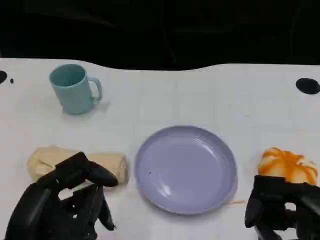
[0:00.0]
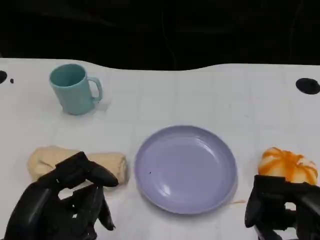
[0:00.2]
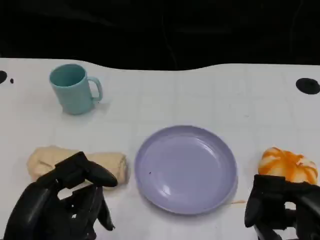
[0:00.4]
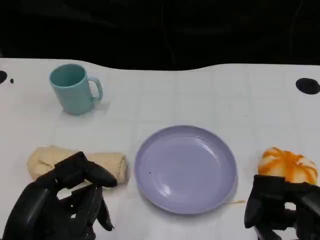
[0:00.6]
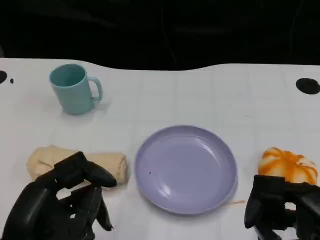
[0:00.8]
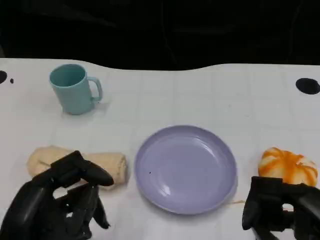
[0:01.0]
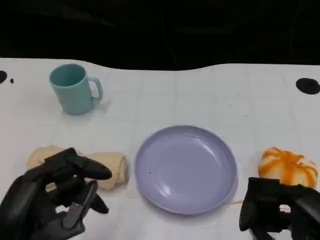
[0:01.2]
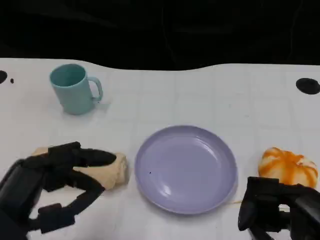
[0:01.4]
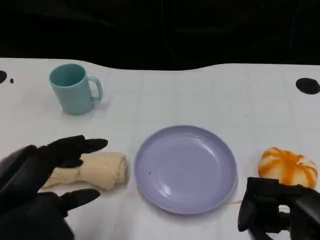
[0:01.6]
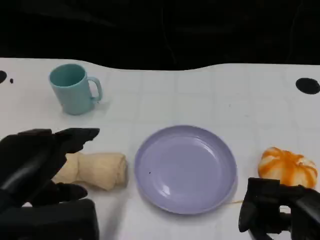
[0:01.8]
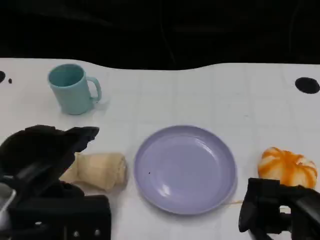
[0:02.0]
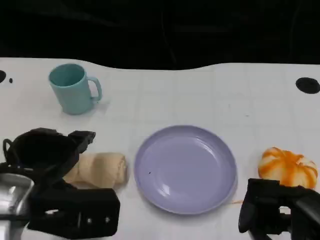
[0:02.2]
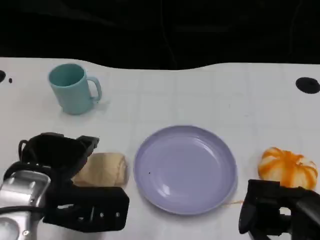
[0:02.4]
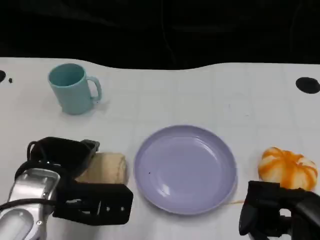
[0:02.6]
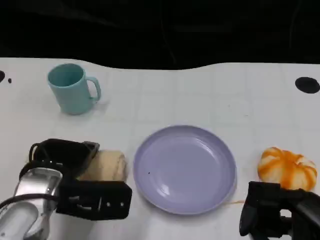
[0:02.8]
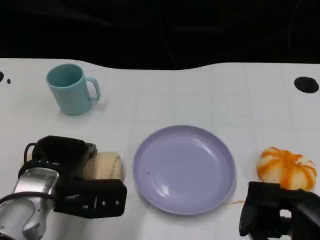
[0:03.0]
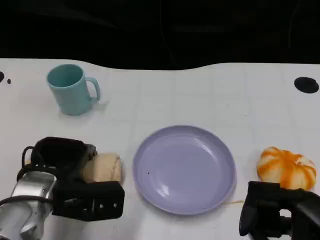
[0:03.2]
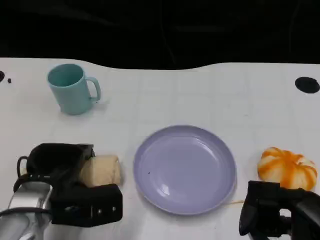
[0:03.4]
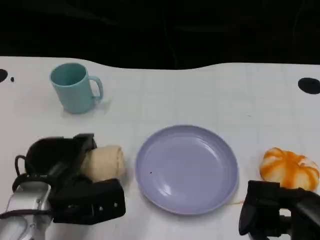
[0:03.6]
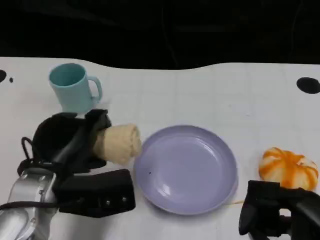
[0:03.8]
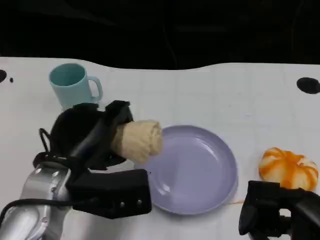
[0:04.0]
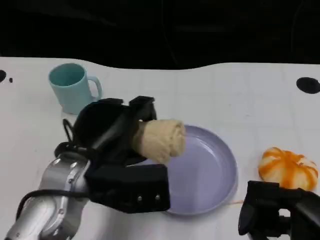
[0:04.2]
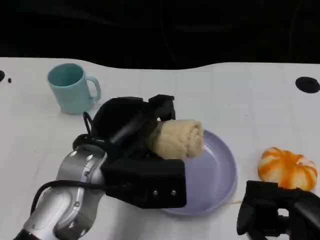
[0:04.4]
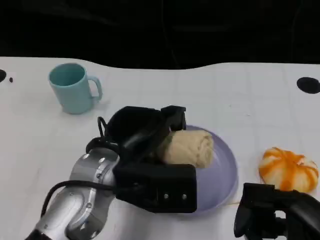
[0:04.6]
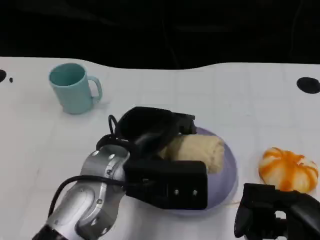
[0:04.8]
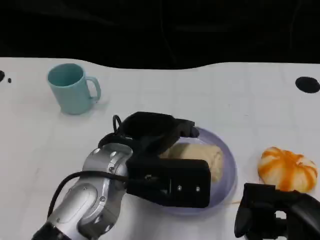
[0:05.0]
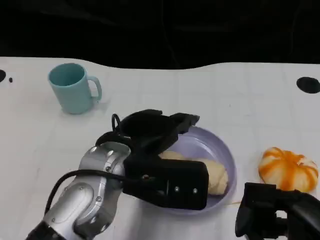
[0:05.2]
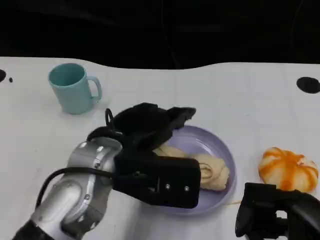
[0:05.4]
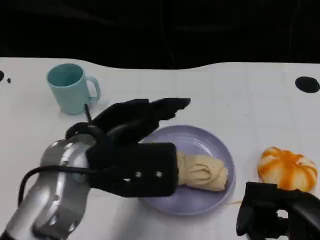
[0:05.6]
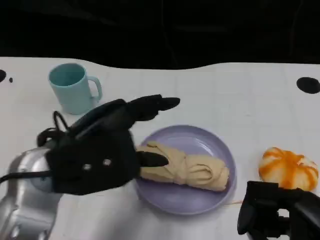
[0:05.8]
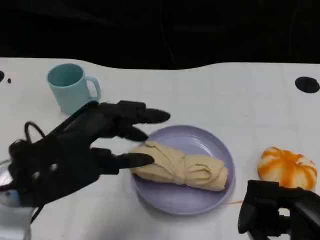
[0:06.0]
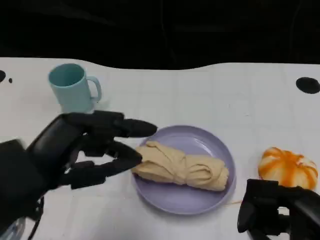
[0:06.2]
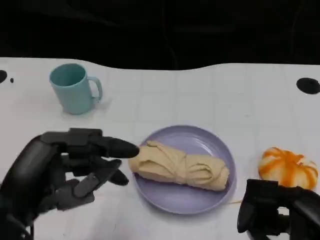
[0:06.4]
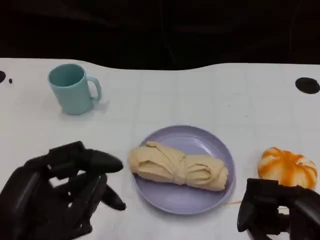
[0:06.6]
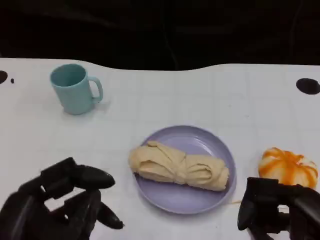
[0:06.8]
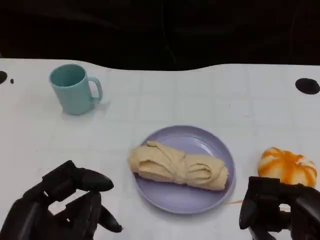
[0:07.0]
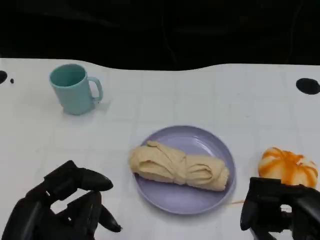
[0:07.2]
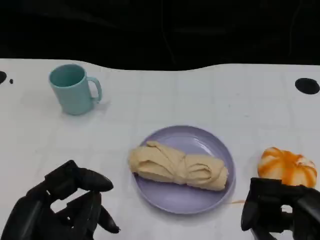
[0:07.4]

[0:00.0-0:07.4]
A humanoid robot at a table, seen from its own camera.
Task of the whole recording: Grasp the towel on the left side of the plate with the left hand and place it into the plate.
0:01.4 to 0:03.0: The left hand shifts about 15 cm forward and downward.
0:03.0 to 0:04.4: The left hand travels upward and to the right by roughly 10 cm.
0:04.4 to 0:06.0: The left hand shifts roughly 10 cm to the left.
0:06.0 to 0:07.4: The left hand goes some 10 cm backward and downward.

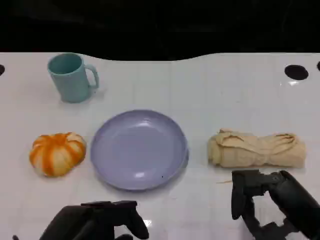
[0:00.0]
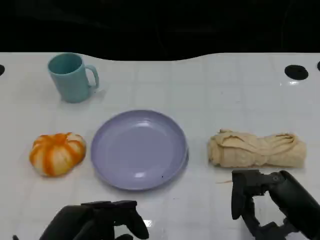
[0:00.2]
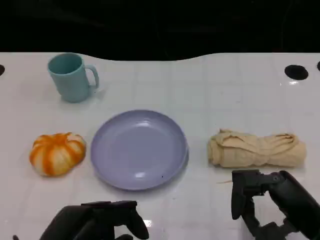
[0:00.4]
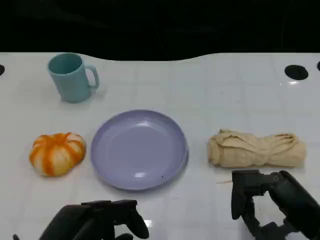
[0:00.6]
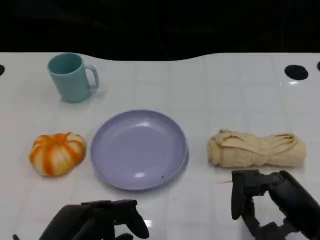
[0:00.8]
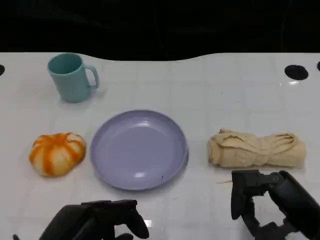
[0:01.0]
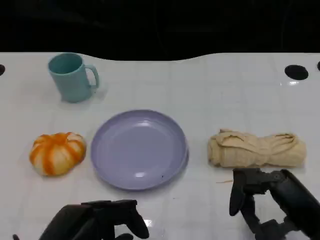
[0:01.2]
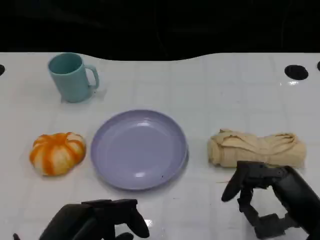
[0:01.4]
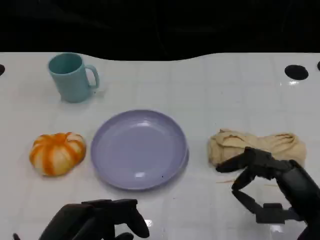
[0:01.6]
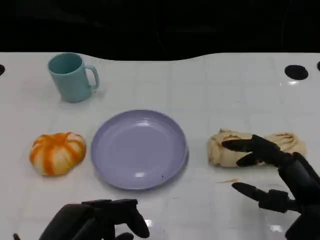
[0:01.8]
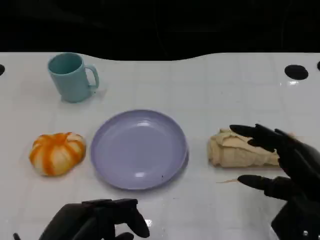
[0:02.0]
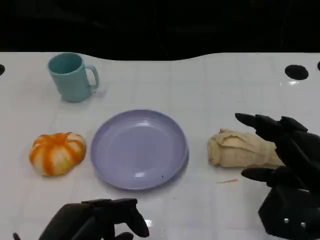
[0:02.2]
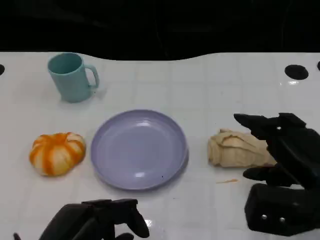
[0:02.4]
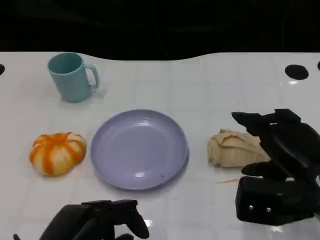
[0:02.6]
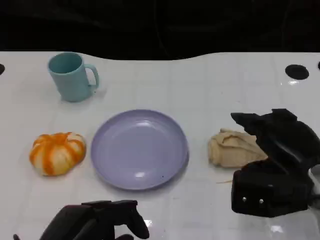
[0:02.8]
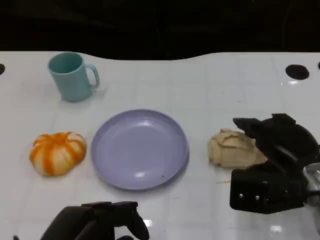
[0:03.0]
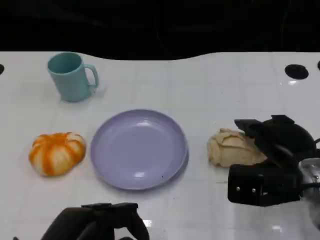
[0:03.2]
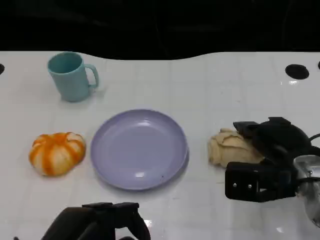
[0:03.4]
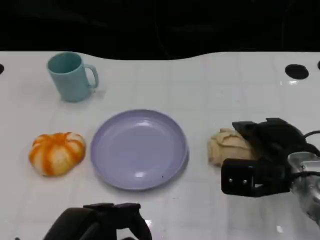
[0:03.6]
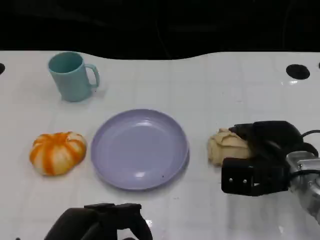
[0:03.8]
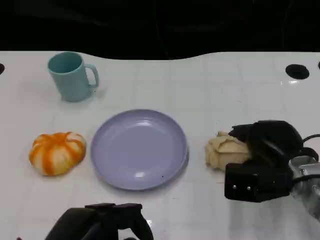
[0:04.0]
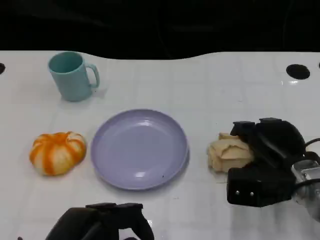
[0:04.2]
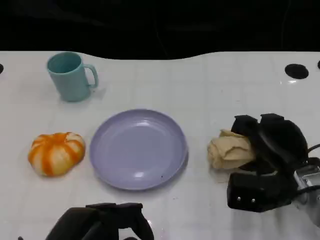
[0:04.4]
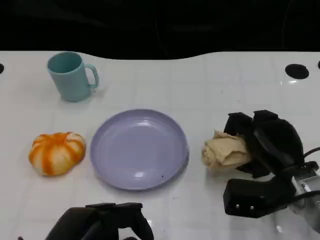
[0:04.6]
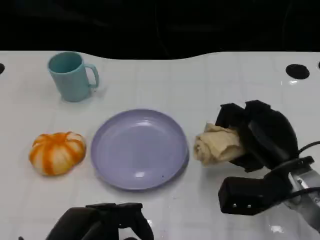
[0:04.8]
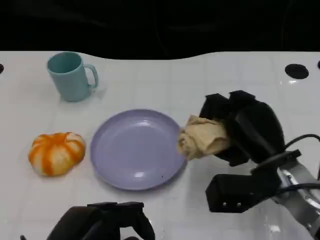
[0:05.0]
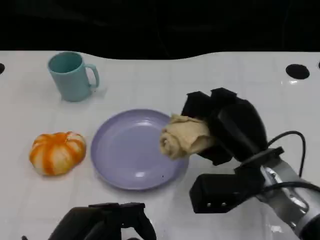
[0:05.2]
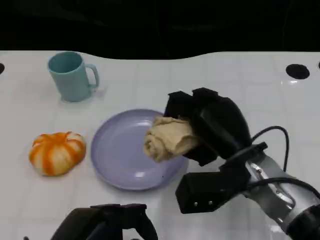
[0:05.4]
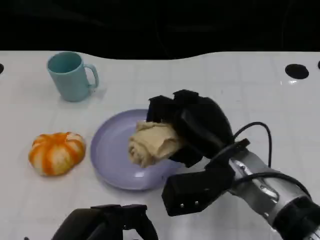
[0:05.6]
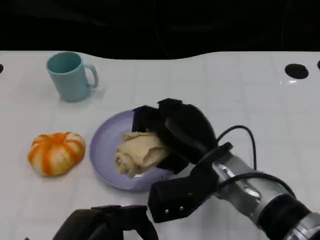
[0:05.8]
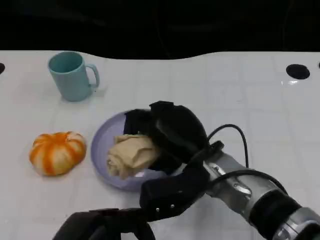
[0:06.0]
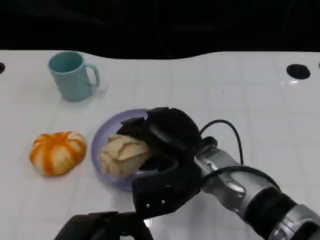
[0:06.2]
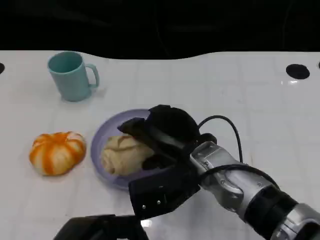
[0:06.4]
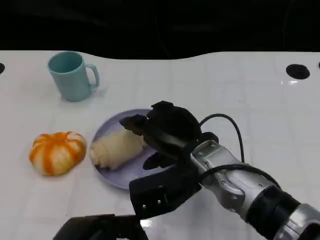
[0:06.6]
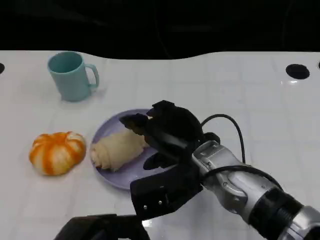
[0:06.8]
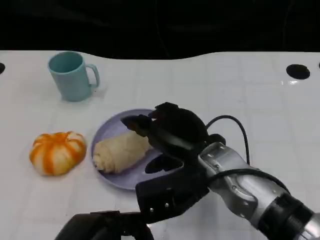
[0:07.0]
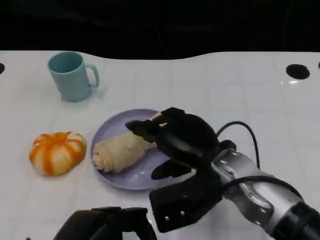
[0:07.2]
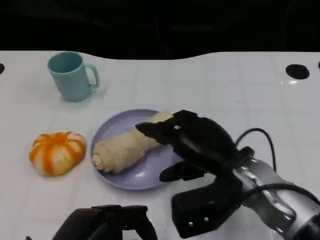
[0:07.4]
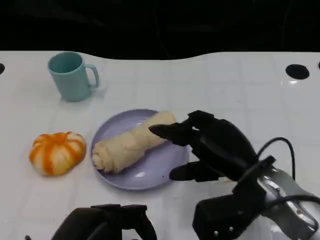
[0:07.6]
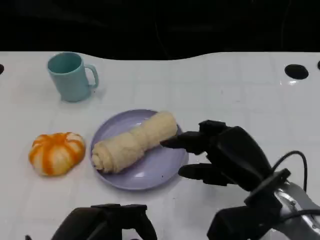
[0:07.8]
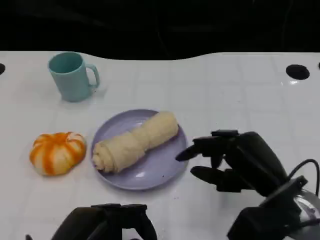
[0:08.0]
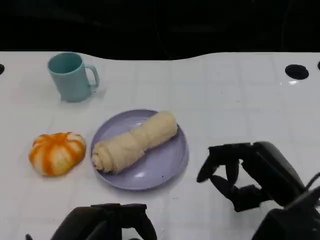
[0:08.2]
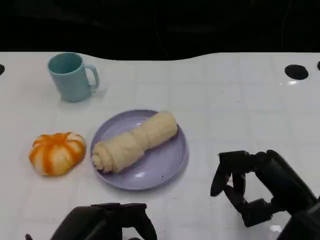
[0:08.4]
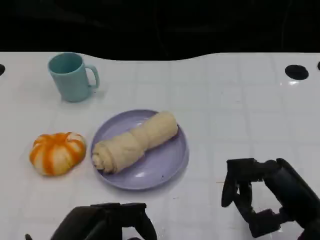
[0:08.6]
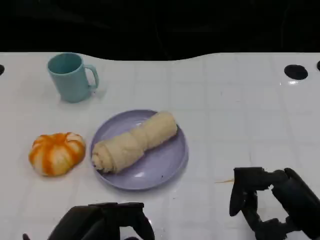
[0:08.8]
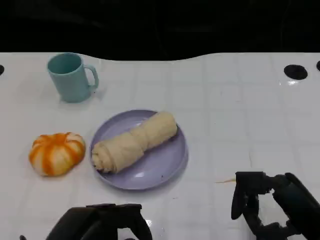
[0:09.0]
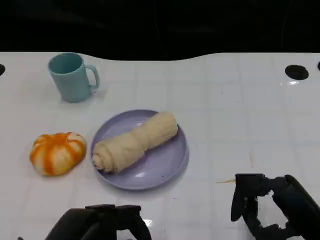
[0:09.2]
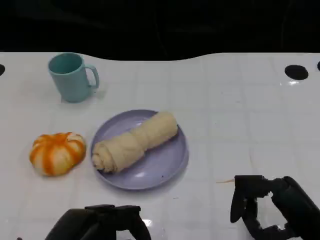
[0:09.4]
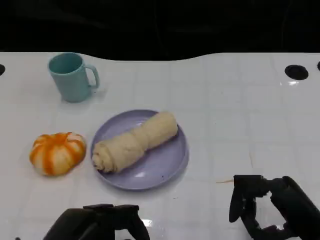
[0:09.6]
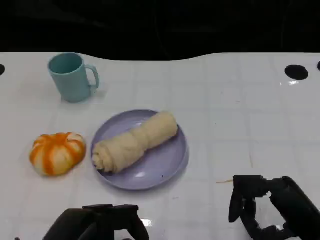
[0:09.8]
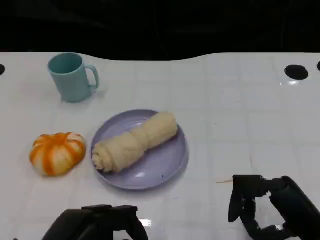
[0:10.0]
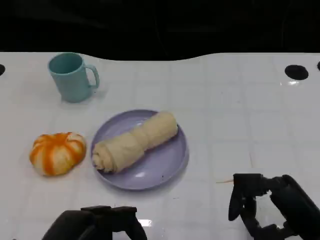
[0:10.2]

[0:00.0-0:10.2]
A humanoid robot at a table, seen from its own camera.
Task of the whole recording: Grasp the towel on the left side of the plate with the left hand and place it into the plate.
0:00.0 to 0:01.4: There are only small adjustments of the hands.
0:01.4 to 0:03.0: The right hand travels forward by roughly 10 cm.
0:03.0 to 0:04.4: The right hand ends up some 5 cm from where it was.
0:04.4 to 0:05.8: The right hand travels to the left by roughly 15 cm.
0:07.2 to 0:08.8: The right hand moves to the right and backward, approximately 15 cm.
0:08.8 to 0:10.2: Both hands stay about where they are.

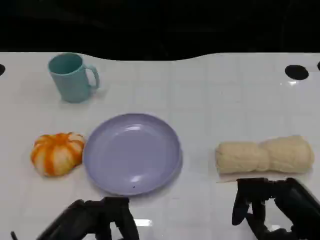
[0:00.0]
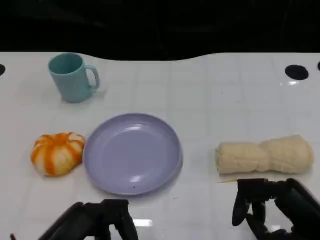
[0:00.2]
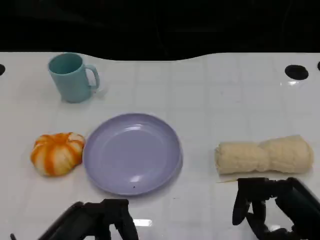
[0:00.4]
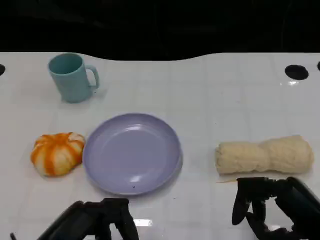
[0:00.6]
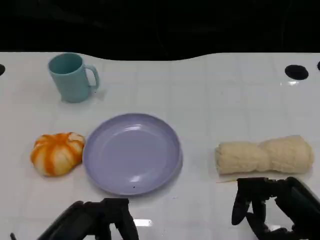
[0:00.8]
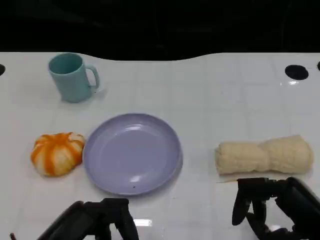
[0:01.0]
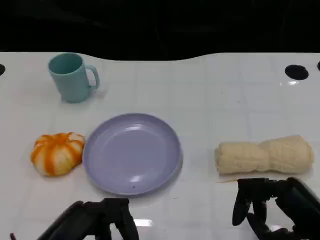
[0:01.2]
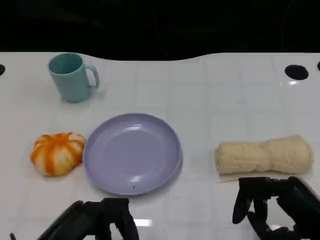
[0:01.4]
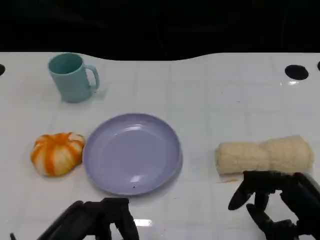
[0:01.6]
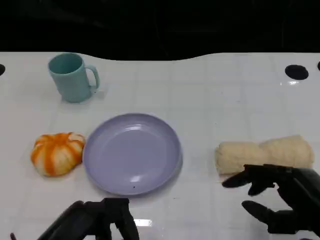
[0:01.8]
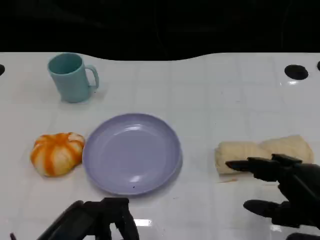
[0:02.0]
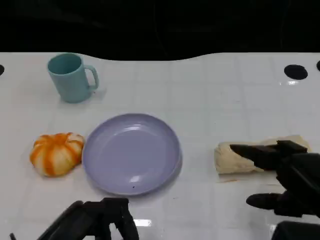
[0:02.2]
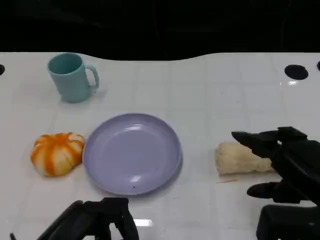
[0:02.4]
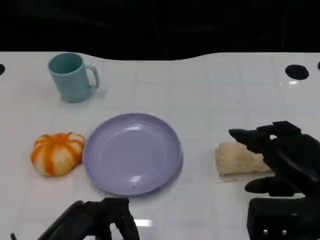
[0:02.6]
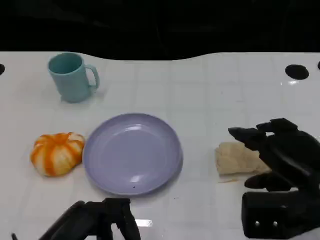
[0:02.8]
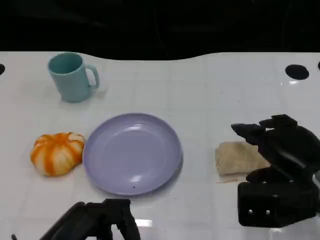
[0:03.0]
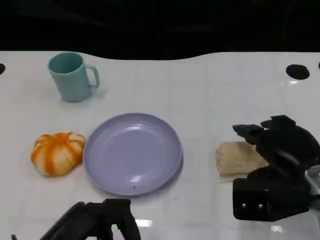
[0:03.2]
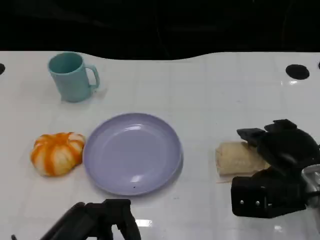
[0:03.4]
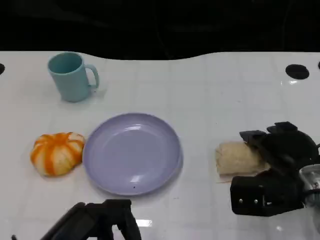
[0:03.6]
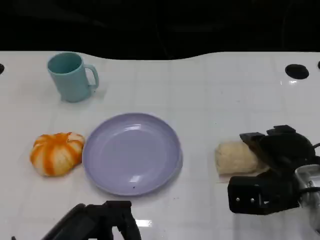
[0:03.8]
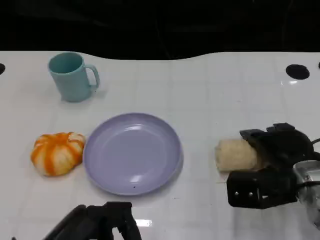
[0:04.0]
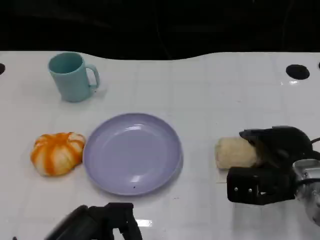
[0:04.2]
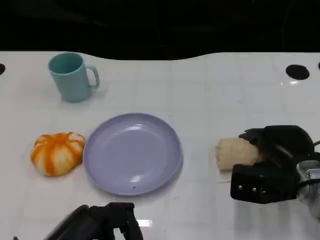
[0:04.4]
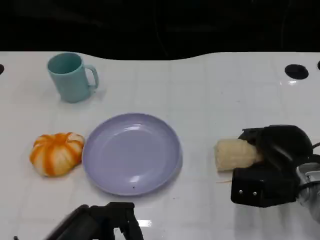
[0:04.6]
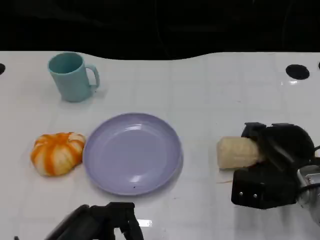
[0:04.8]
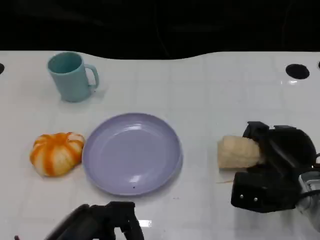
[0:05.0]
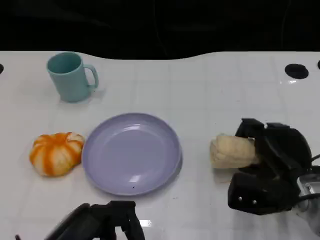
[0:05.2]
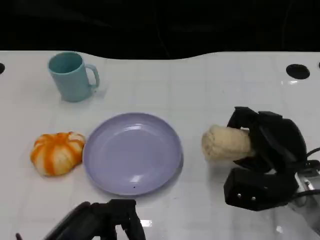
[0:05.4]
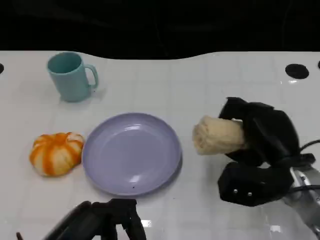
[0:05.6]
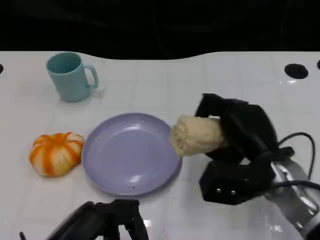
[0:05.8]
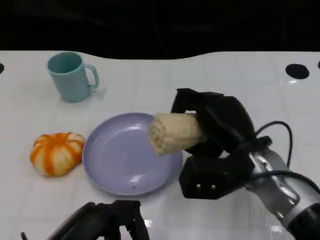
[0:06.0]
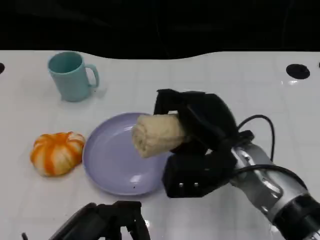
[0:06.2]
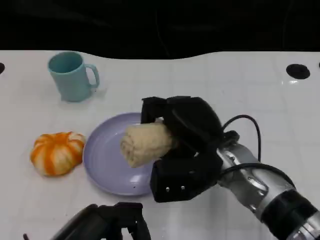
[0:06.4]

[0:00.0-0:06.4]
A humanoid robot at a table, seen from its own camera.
Task of the whole recording: Grasp the towel on the left side of the plate with the left hand and place it into the plate.
0:00.0 to 0:01.6: The hands stay close to where they were, moving slightly.
0:01.6 to 0:03.2: The right hand travels forward by some 10 cm.
0:03.2 to 0:04.8: The right hand goes some 5 cm downward.
0:04.8 to 0:06.4: The right hand heads to the left and upward, covering approximately 15 cm.
